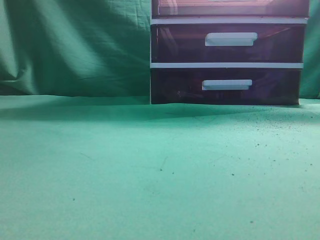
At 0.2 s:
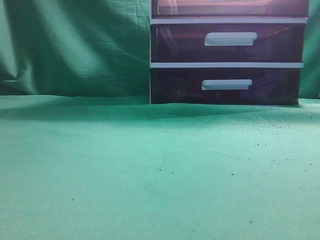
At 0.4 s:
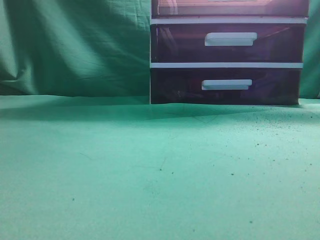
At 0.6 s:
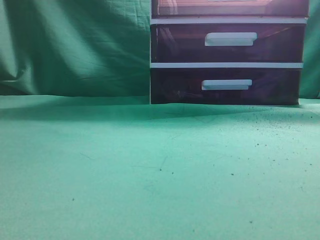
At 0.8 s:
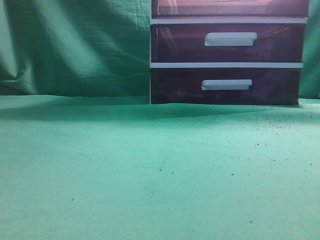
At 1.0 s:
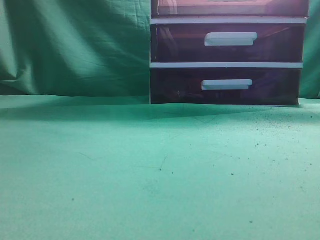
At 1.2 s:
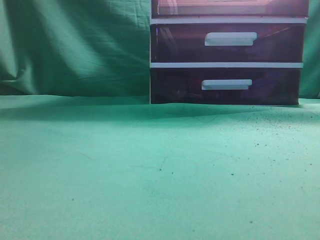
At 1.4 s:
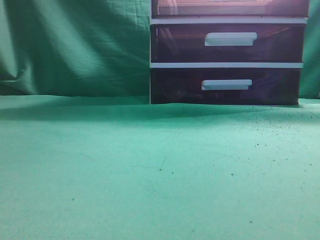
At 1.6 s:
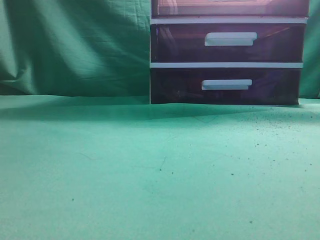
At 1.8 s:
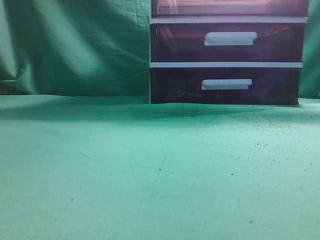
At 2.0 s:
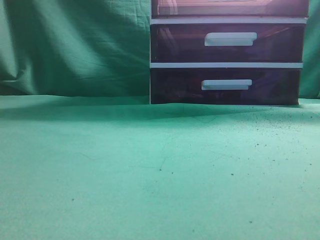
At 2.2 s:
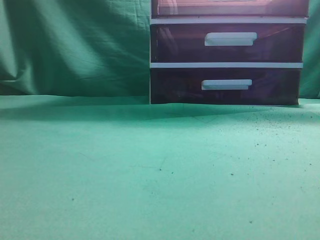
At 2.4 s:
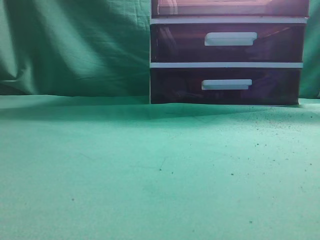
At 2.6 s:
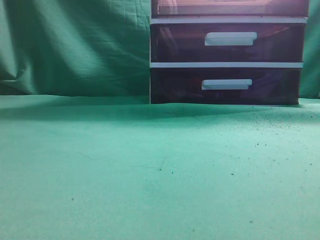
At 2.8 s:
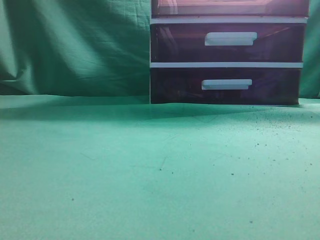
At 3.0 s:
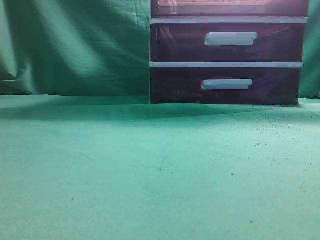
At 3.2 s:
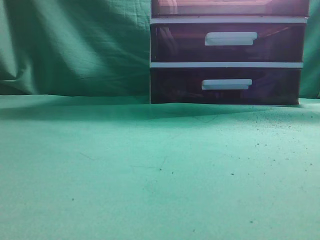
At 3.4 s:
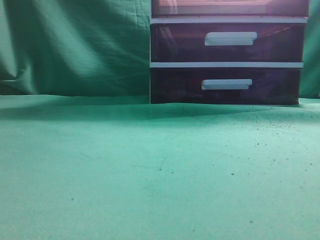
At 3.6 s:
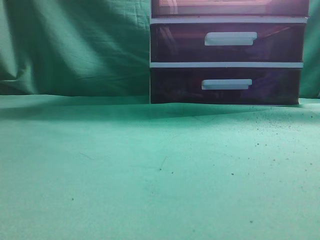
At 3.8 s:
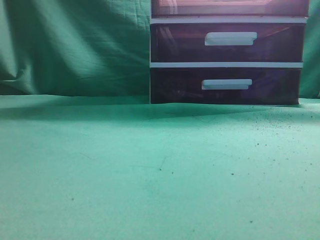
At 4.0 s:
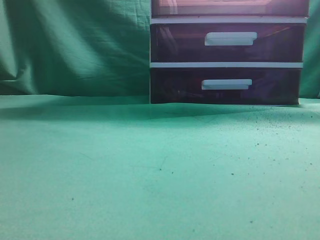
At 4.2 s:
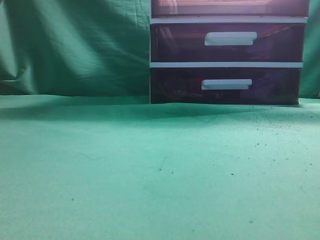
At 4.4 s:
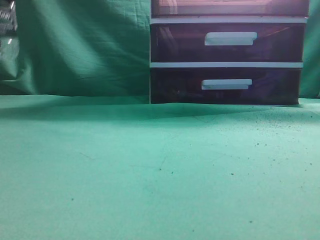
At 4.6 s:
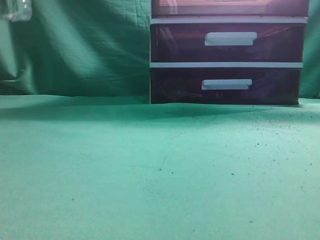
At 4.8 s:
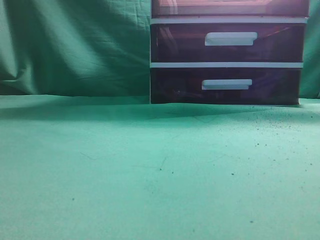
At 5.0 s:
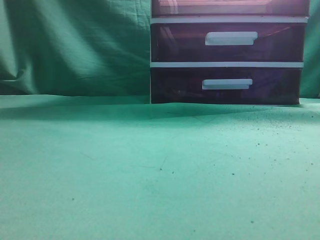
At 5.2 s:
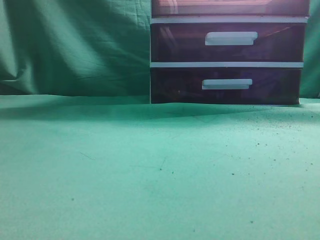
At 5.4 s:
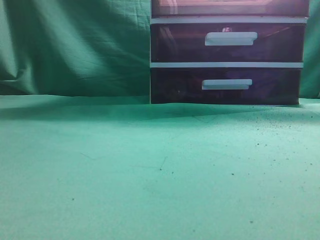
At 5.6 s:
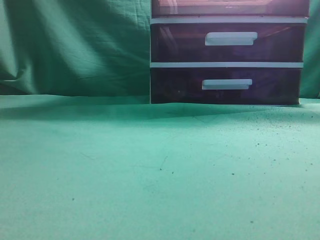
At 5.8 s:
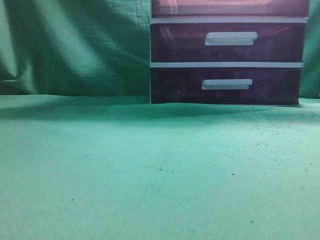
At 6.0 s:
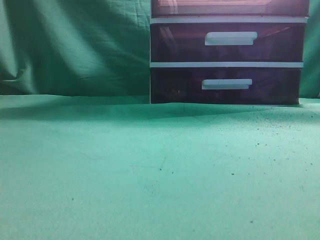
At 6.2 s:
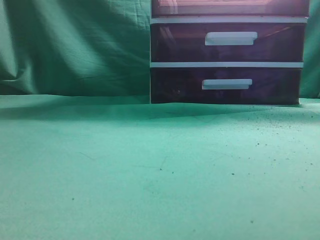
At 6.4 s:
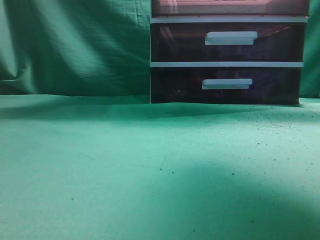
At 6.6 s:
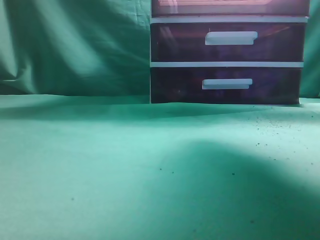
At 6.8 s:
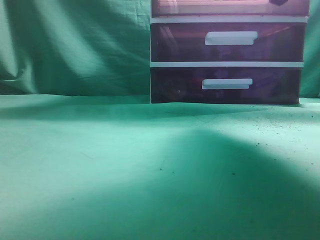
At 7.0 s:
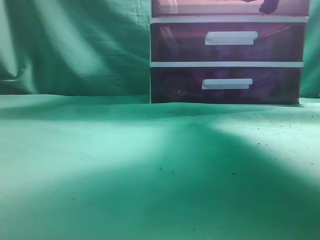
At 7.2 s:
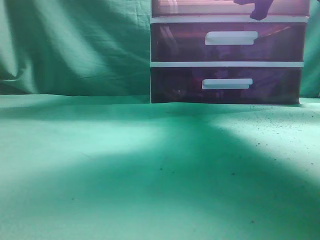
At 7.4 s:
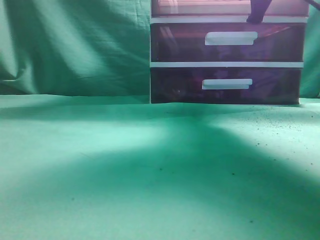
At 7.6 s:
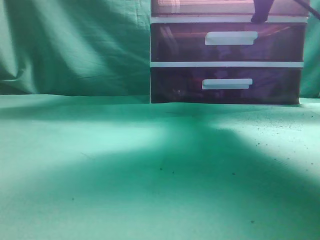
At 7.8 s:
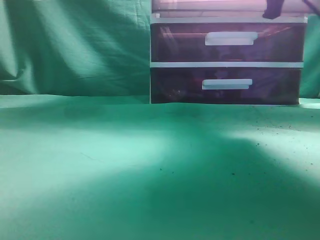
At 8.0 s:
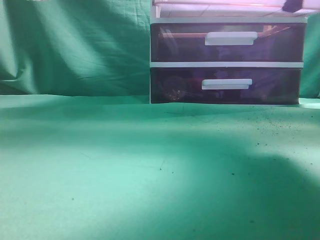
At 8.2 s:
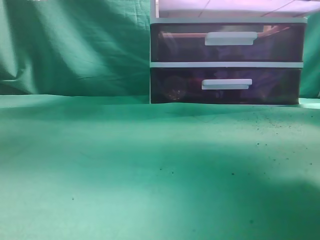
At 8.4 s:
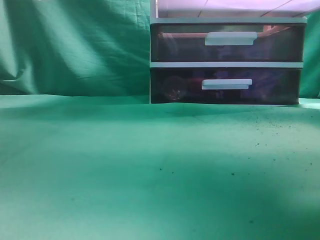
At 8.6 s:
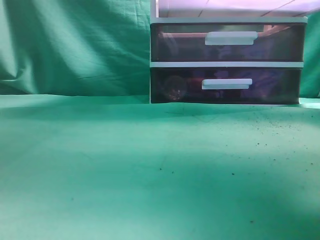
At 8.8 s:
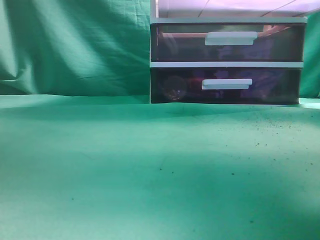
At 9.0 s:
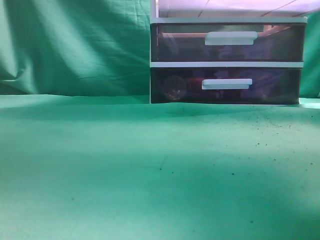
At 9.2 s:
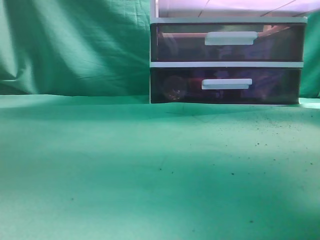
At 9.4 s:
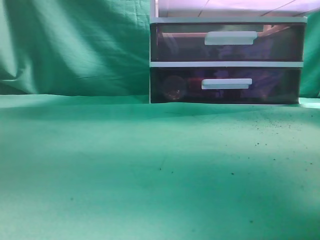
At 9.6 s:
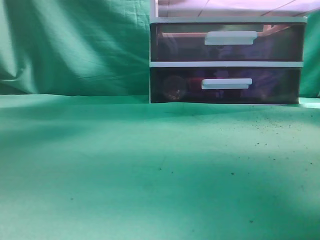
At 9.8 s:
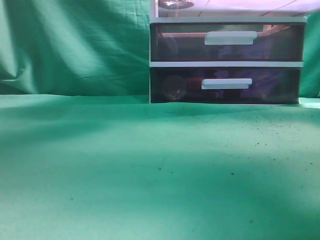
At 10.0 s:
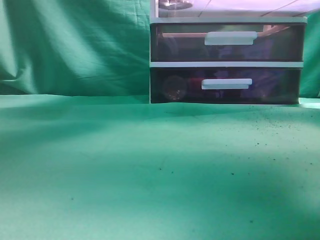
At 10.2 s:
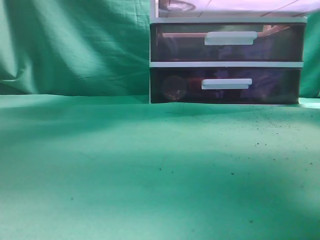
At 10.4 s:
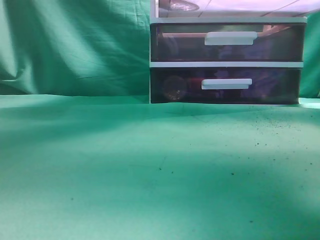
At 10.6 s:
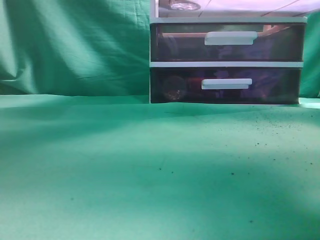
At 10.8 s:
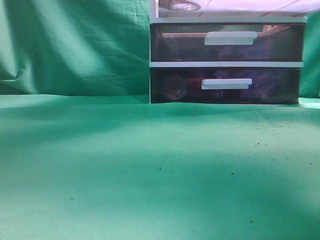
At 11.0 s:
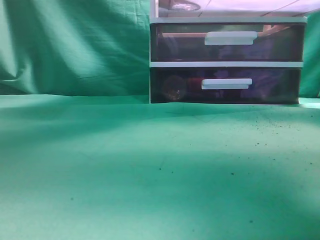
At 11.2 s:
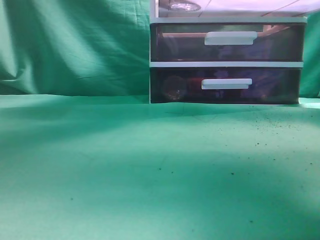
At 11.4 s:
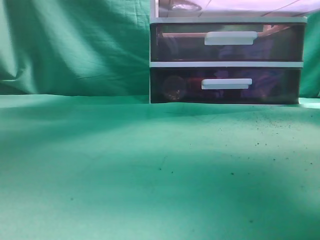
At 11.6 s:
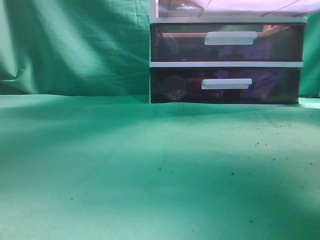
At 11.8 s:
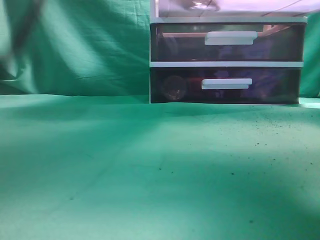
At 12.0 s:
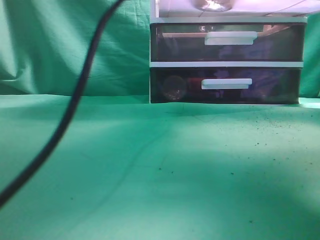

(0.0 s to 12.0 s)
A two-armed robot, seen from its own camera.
Task of the whole recording: place the water bottle into the drawer.
Step, 0.0 s - 8.8 s: Open the drawer.
3.0 s - 4.4 s: The left gripper heads forward, covering some 10 cm, and closes its fingers.
4.4 s - 6.0 s: The left gripper heads backward, upward and to the right, covering about 15 cm.
6.0 s - 7.6 s: The right gripper heads forward, downward and to the left, covering some 25 cm, and opens, then closes again.
7.6 s - 9.0 s: The right gripper is displaced backward by some 15 cm. Meanwhile the left gripper shifts approximately 15 cm upward.
9.0 s - 10.4 s: The left gripper goes roughly 20 cm forward, to the right and downward.
10.4 s - 12.0 s: The left gripper goes roughly 5 cm to the right.

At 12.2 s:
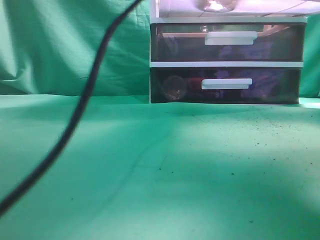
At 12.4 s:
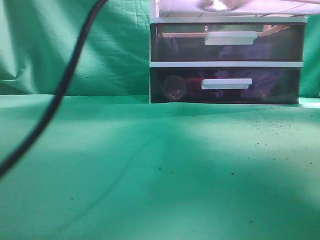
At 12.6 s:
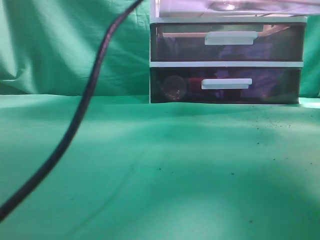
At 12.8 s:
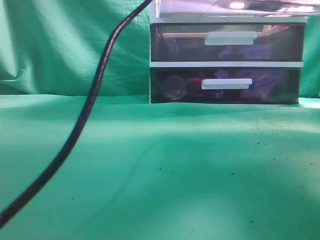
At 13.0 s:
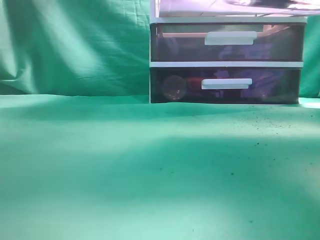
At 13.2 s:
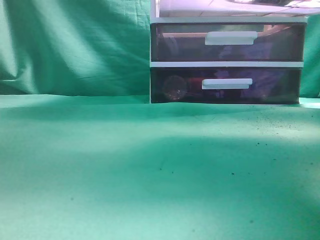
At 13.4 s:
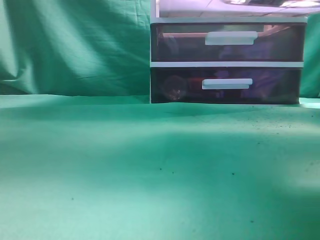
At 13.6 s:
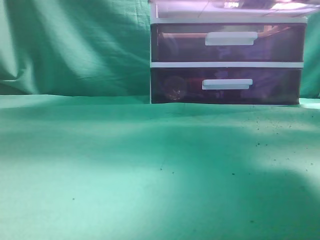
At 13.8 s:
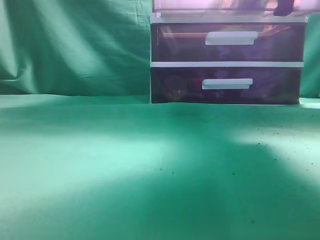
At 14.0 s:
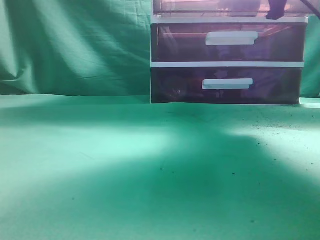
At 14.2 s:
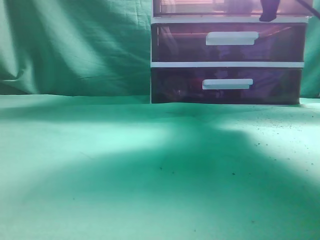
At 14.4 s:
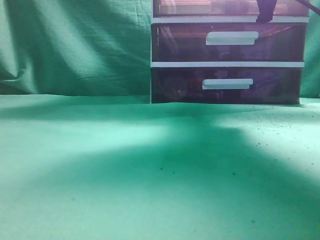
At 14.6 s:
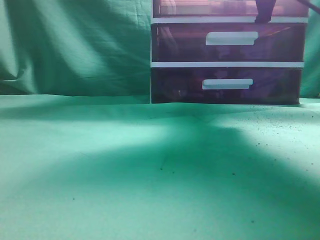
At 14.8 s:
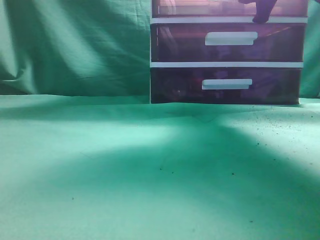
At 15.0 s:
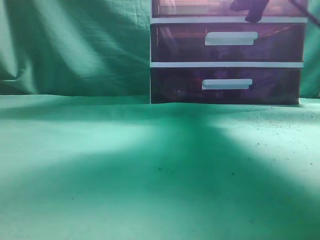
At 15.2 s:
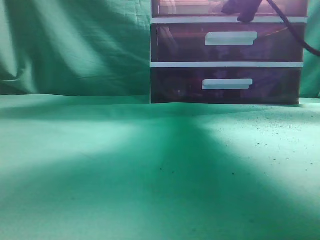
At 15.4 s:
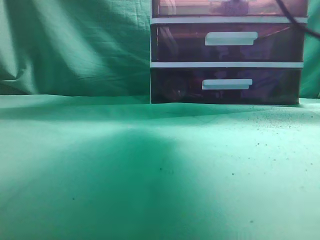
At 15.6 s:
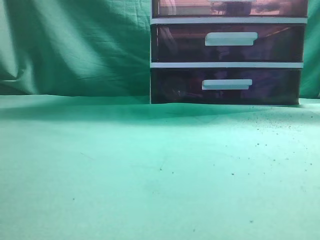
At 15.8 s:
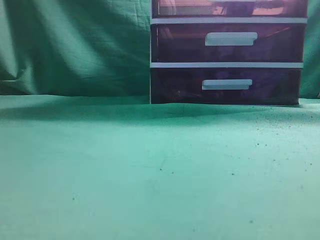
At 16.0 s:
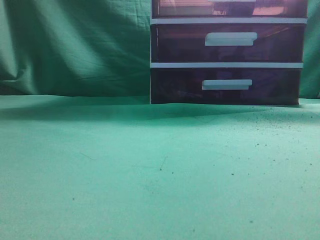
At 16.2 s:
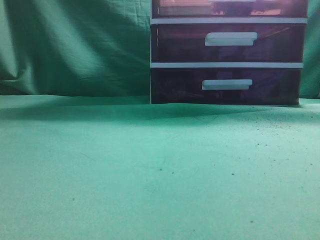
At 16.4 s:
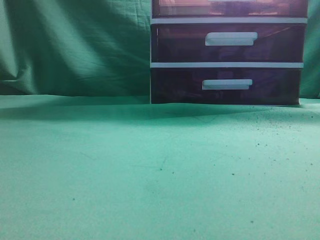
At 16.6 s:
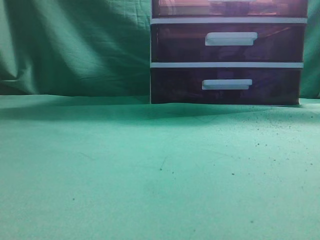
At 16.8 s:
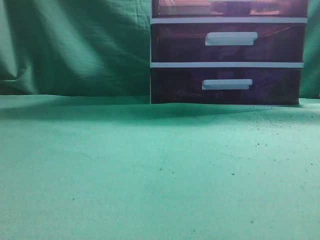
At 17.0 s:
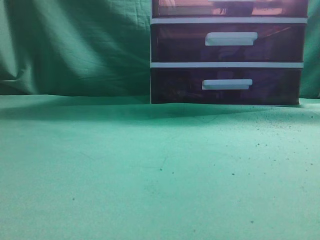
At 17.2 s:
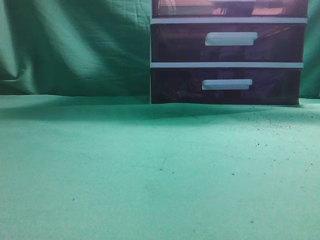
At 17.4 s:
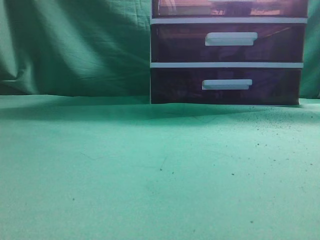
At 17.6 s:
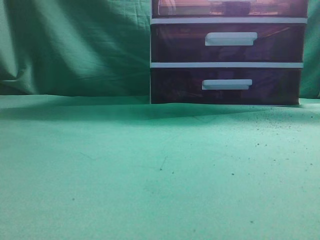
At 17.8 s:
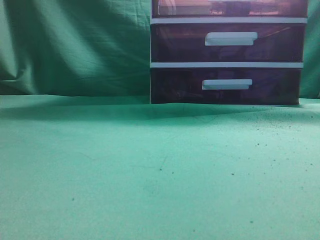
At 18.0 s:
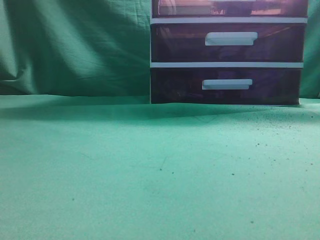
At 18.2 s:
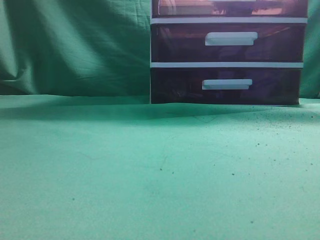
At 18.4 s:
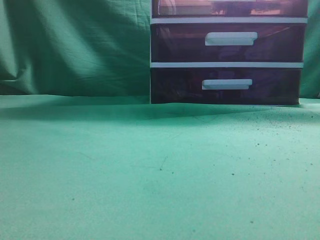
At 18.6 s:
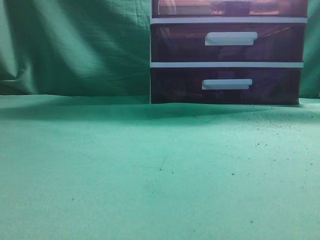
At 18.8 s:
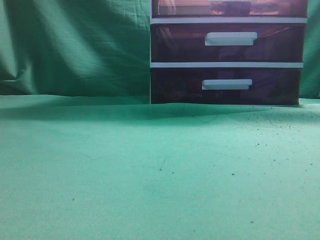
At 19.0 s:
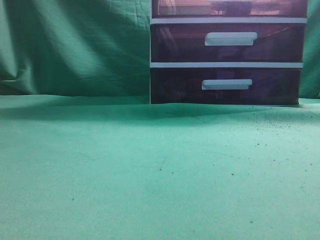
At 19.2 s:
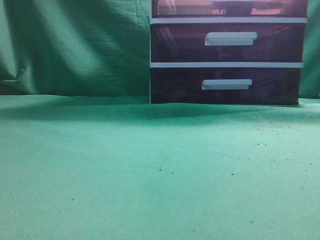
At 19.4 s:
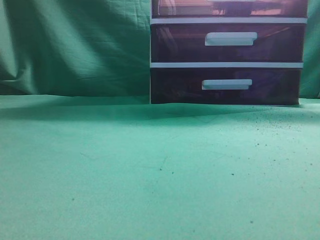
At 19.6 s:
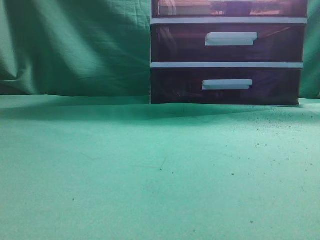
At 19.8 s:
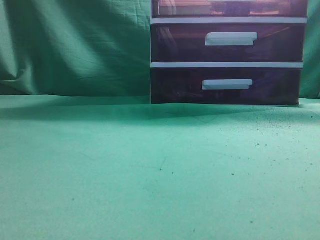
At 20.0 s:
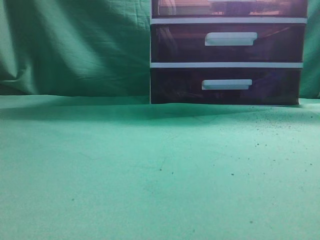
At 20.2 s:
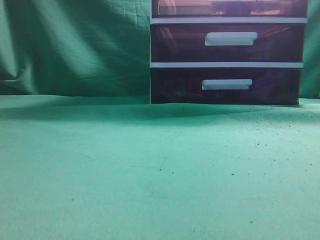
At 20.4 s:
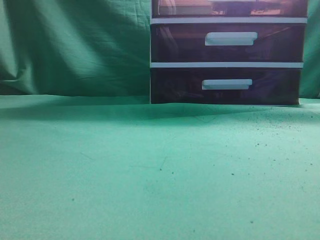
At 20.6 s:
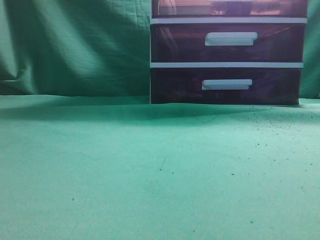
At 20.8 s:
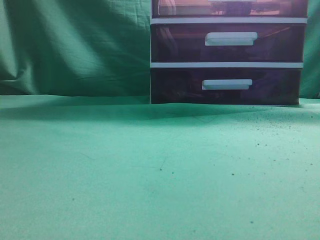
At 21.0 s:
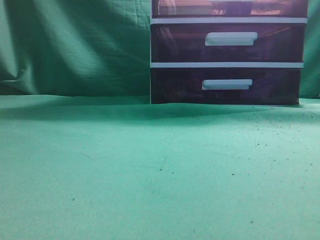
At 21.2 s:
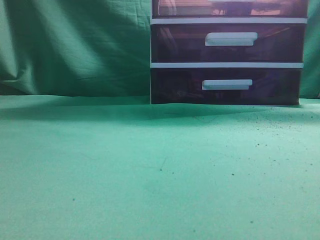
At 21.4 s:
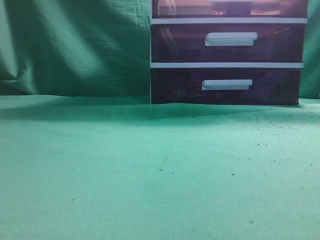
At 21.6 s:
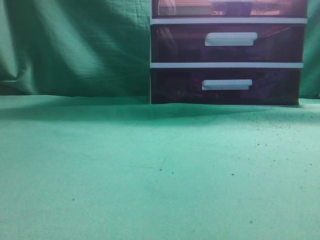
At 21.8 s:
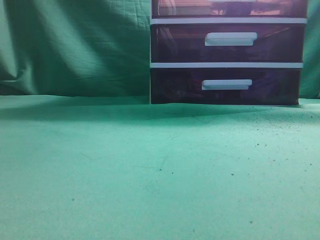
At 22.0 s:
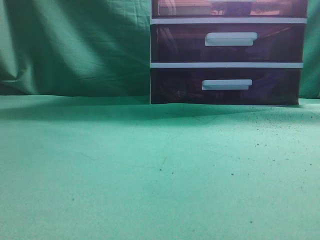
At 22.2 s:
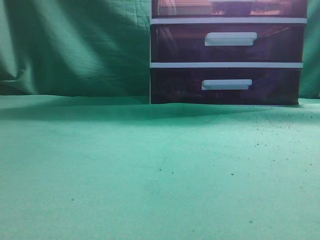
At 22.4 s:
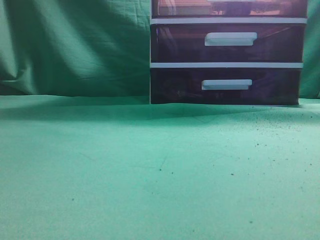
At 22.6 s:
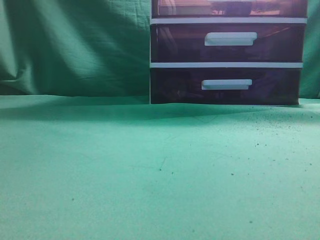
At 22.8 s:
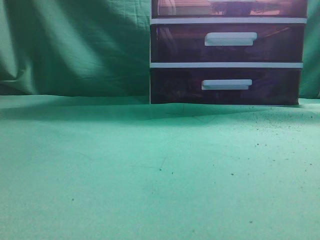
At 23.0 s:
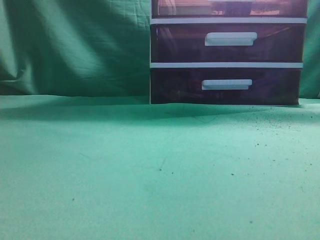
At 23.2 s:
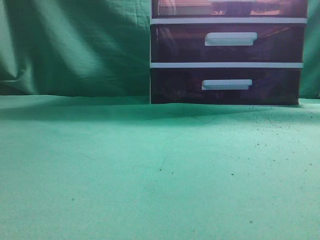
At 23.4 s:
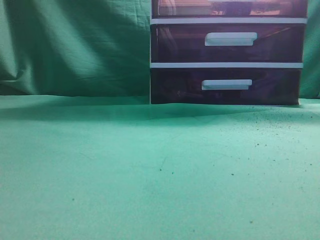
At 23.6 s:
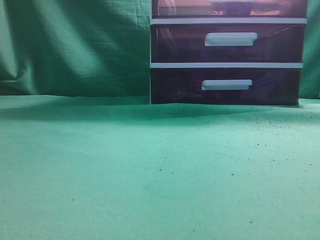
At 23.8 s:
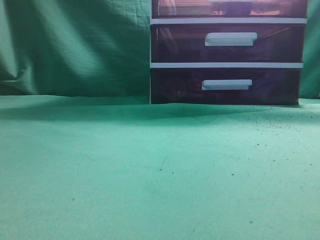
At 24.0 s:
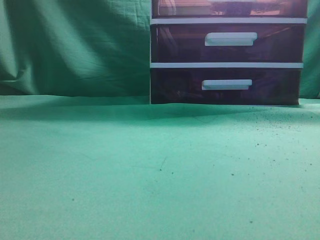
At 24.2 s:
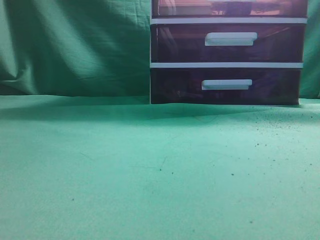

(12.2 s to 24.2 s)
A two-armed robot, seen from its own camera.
Task of the whole recording: place the water bottle into the drawer.
Step, 13.4 s - 15.0 s: Close the drawer.
12.2 s - 13.8 s: The left gripper moves to the left, backward and upward, about 20 cm, and closes its fingers; the right gripper shifts approximately 10 cm forward.
13.8 s - 15.2 s: The left gripper shifts roughly 15 cm backward and downward. The right gripper goes roughly 5 cm forward, and opens its fingers.
15.2 s - 16.6 s: The right gripper travels backward and upward by some 30 cm, and closes its fingers. Meanwhile the left gripper travels to the left and backward by roughly 20 cm.
